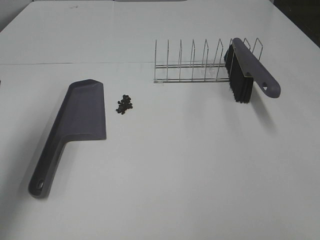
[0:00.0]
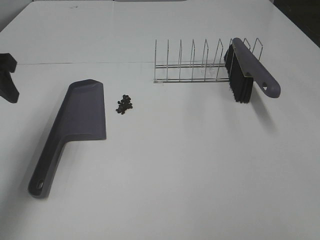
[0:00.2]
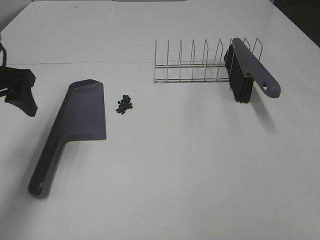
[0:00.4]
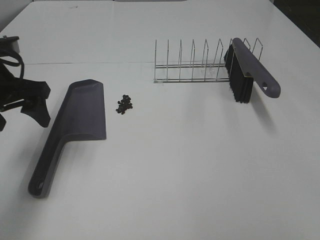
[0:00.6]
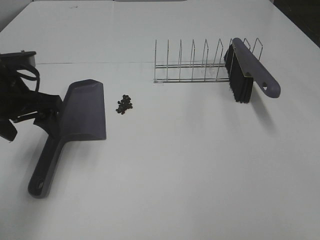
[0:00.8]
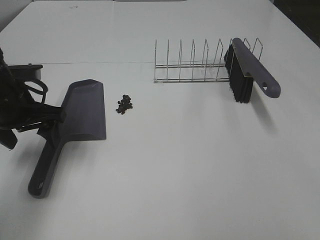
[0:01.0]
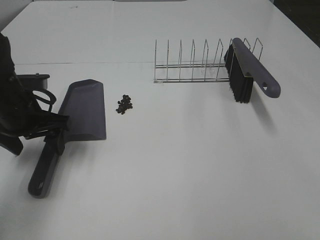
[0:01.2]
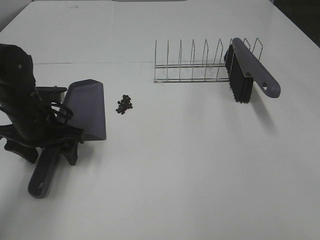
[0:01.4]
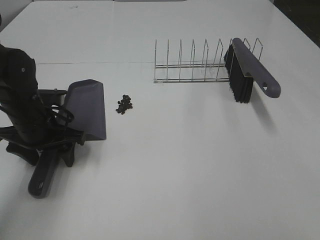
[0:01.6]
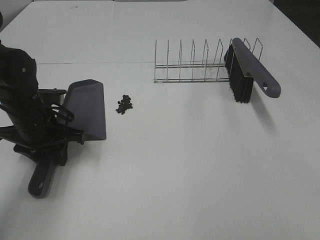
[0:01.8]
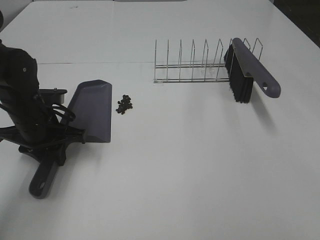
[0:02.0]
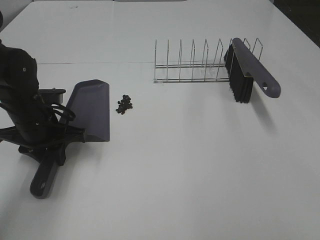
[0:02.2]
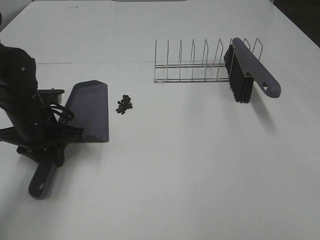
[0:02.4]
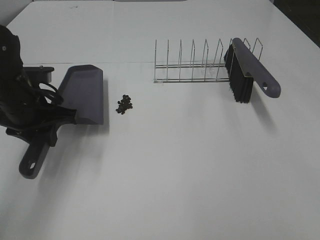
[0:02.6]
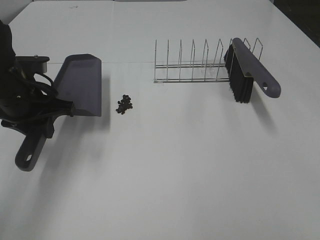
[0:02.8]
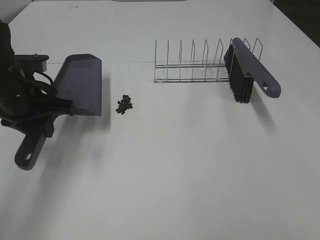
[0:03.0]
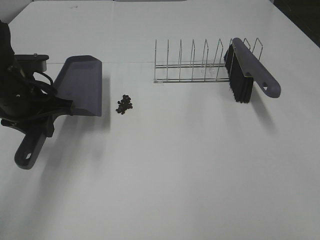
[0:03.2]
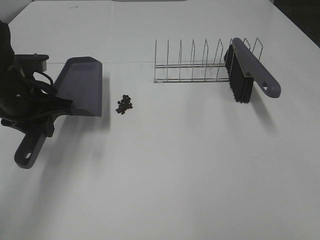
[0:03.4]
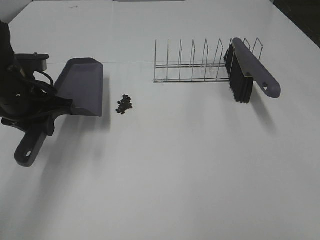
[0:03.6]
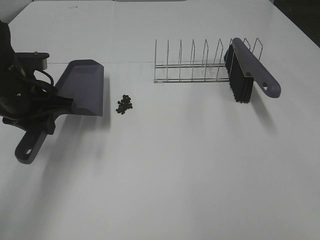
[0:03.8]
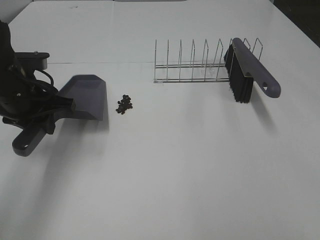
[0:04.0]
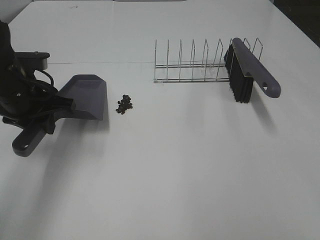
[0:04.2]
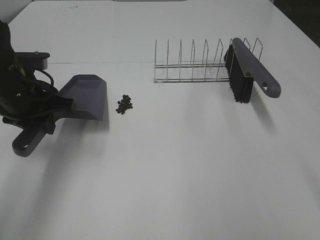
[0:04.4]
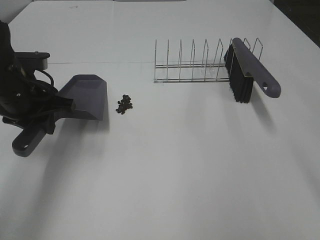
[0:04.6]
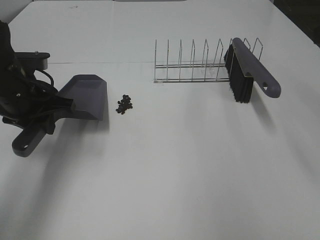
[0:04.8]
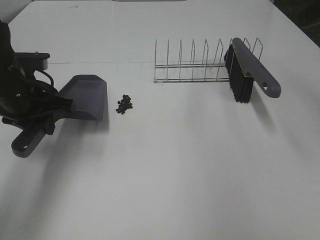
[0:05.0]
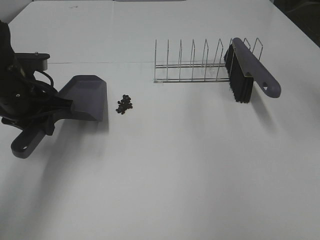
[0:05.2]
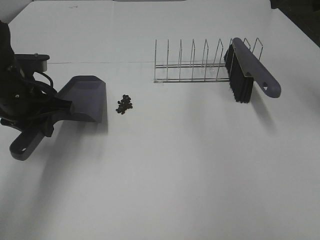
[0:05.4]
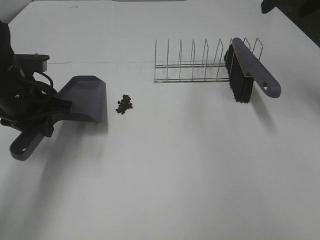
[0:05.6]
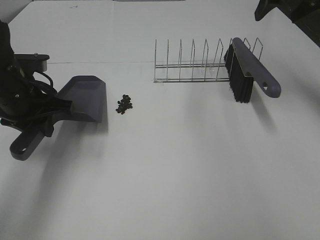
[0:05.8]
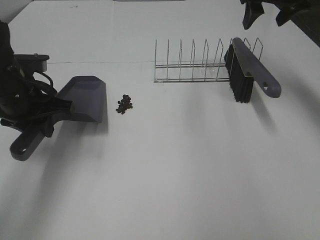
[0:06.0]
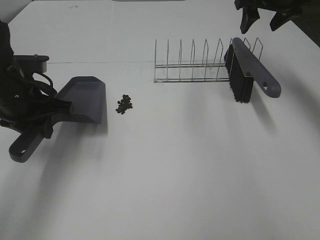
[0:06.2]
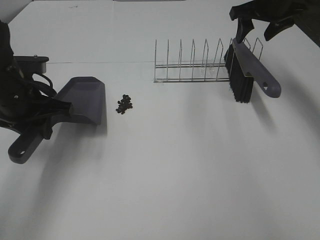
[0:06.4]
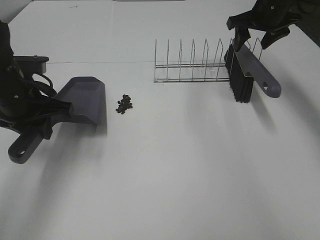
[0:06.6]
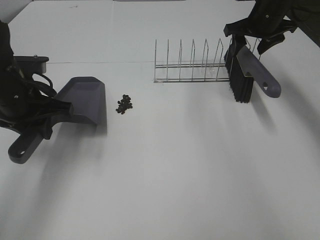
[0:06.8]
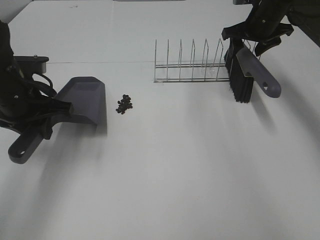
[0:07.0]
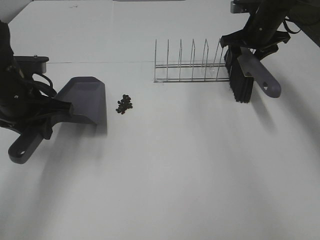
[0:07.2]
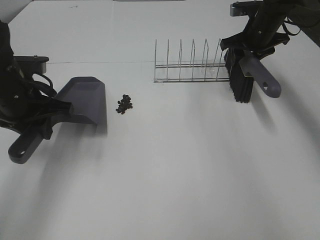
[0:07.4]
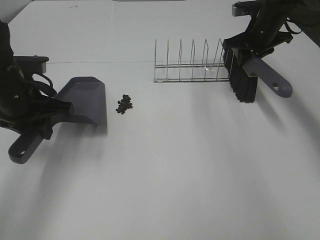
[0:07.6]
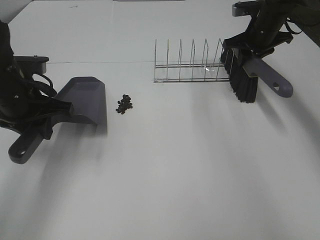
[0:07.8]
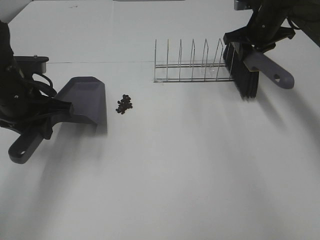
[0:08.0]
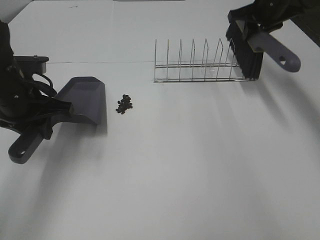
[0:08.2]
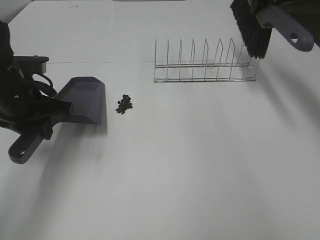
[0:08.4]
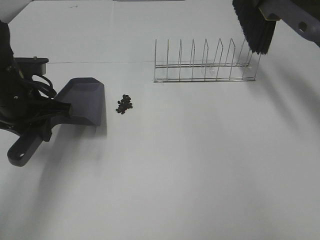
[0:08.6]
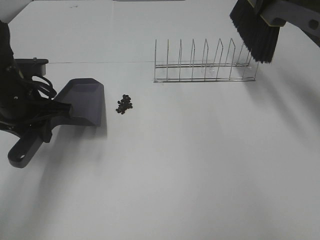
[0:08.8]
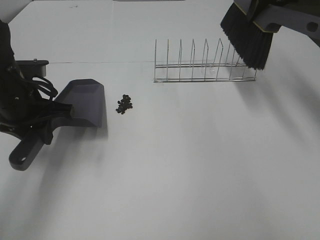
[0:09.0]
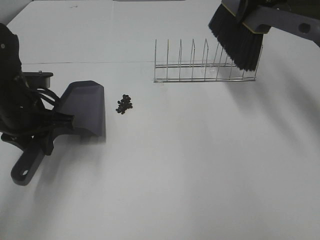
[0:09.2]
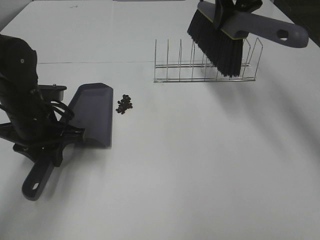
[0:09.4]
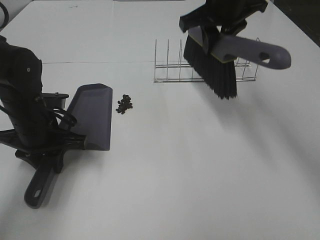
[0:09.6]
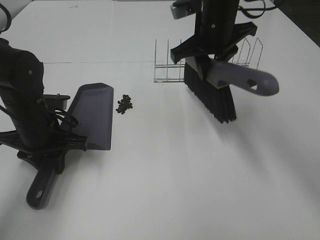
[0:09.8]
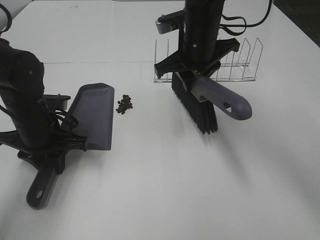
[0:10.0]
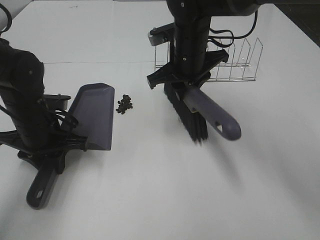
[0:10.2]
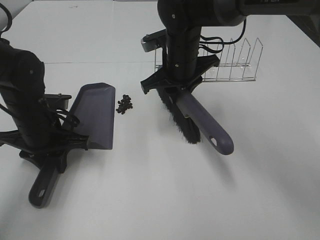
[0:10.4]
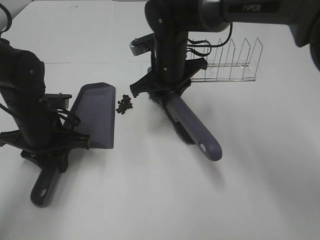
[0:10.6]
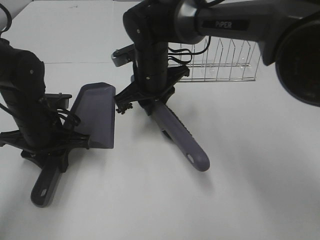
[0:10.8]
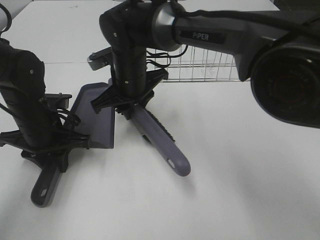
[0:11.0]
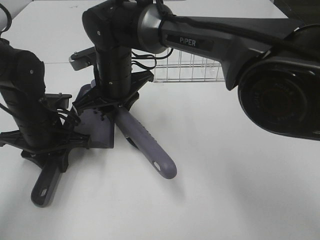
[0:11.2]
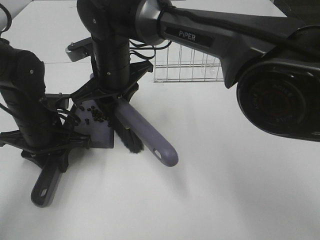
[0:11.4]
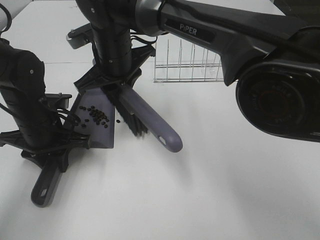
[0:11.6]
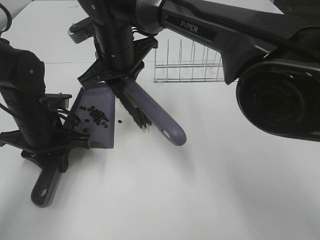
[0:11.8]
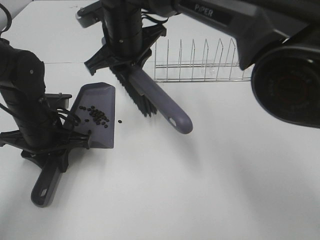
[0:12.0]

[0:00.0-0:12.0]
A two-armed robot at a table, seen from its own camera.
Task of the whole recording: Sweep Coffee Bean.
Step, 0:03.8 to 0:07.6: Right hand:grab the broom.
0:00.0 to 0:01.6: The left gripper travels downward and to the right by some 20 cm.
0:01.6 to 0:03.0: The left gripper goes roughly 5 cm upward, and closes up.
0:04.4 to 0:06.0: The right gripper is displaced forward by roughly 40 cm.
0:06.0 to 0:07.6: The right gripper heads downward, covering about 10 cm, and closes up.
0:07.6 to 0:09.0: The right gripper shifts roughly 15 cm upward and backward.
0:09.0 to 0:10.4: The left gripper moves downward, some 5 cm; the right gripper moves to the left and downward, approximately 25 cm.
0:10.4 to 0:12.0: The right gripper heads to the left and upward, covering some 10 cm.

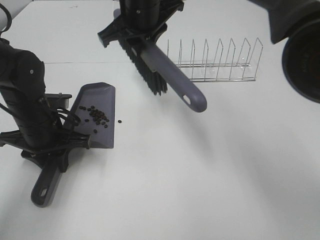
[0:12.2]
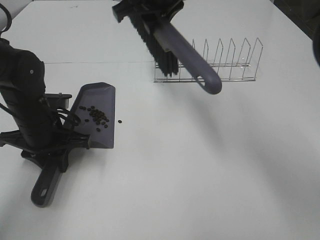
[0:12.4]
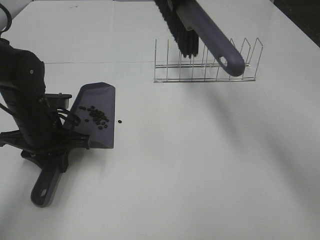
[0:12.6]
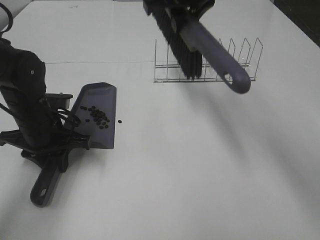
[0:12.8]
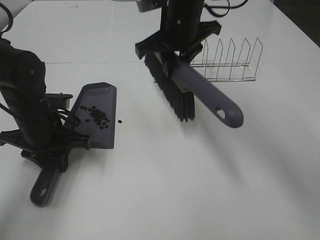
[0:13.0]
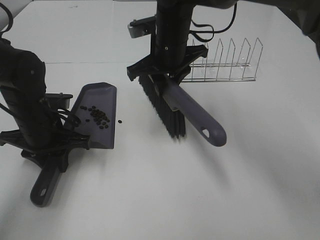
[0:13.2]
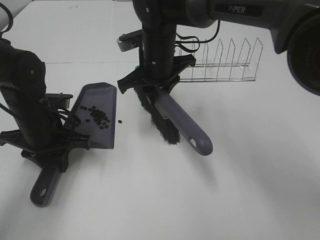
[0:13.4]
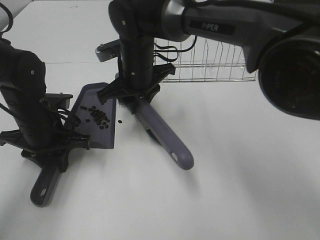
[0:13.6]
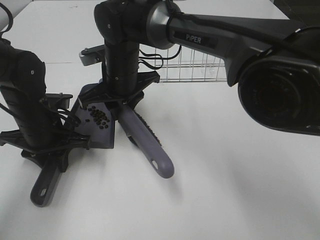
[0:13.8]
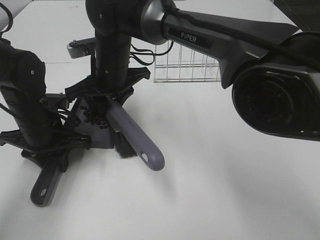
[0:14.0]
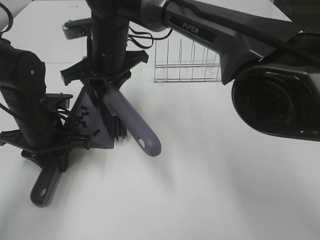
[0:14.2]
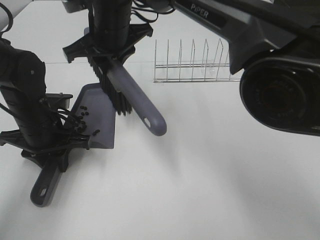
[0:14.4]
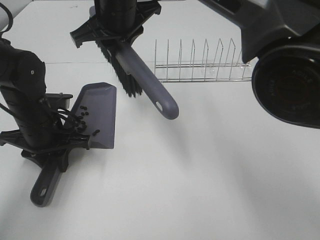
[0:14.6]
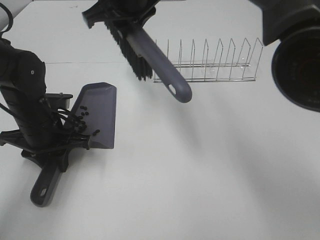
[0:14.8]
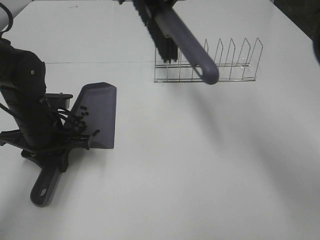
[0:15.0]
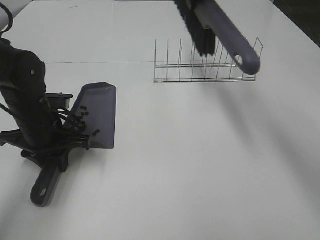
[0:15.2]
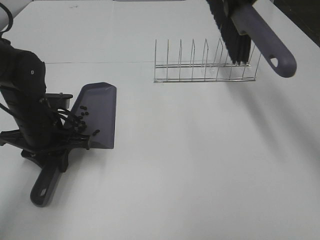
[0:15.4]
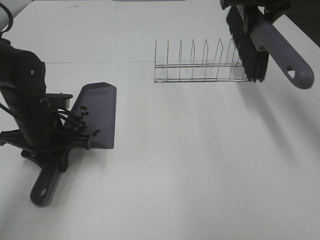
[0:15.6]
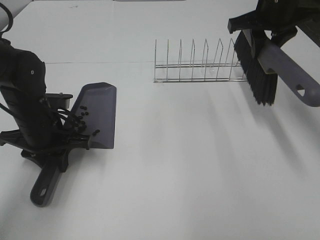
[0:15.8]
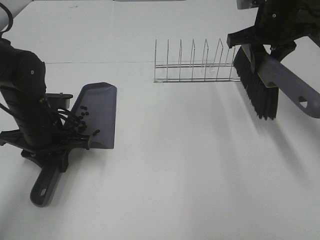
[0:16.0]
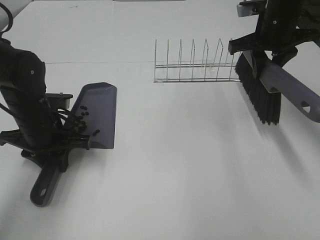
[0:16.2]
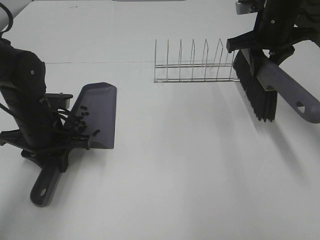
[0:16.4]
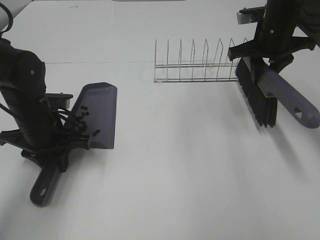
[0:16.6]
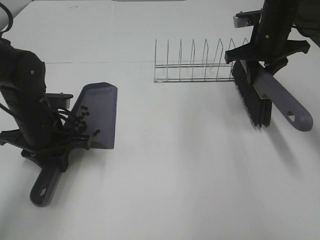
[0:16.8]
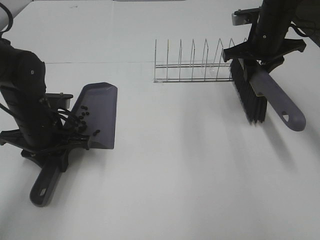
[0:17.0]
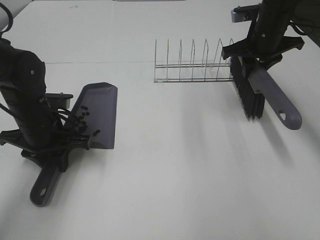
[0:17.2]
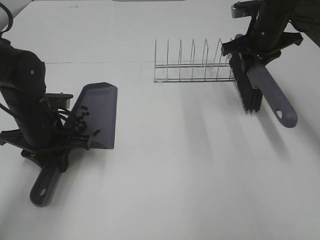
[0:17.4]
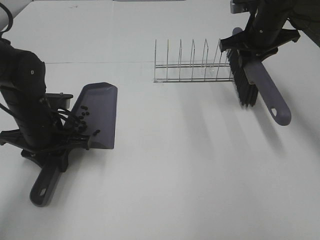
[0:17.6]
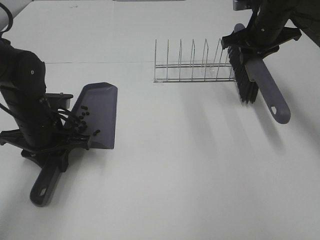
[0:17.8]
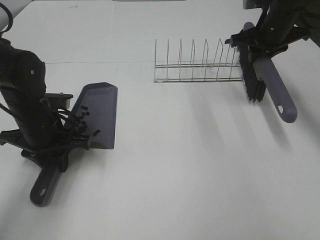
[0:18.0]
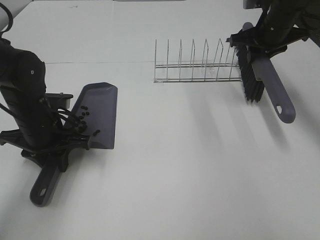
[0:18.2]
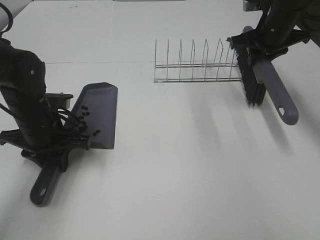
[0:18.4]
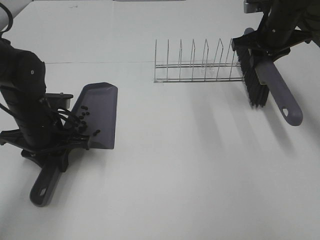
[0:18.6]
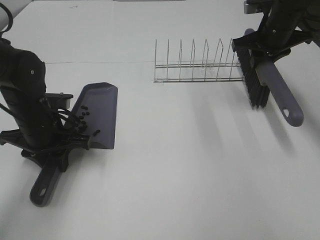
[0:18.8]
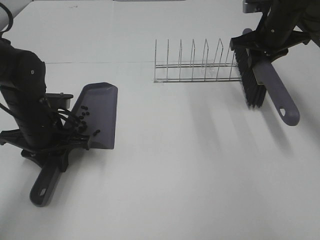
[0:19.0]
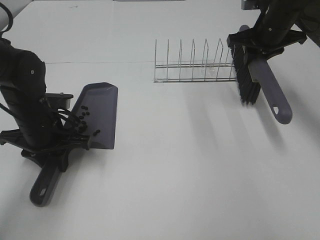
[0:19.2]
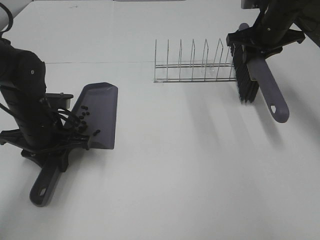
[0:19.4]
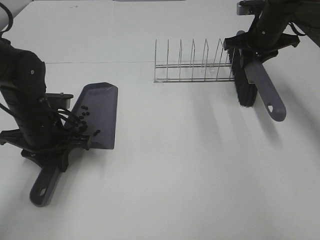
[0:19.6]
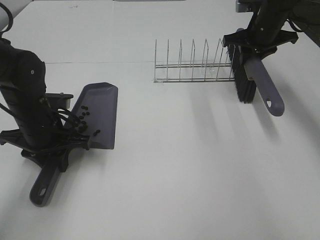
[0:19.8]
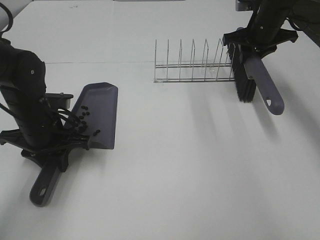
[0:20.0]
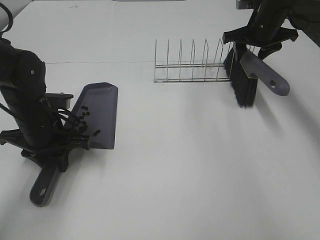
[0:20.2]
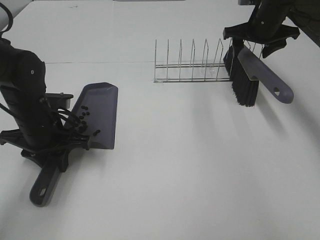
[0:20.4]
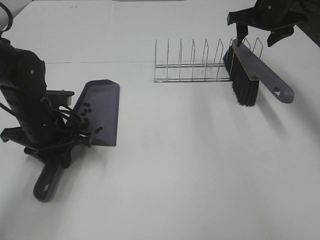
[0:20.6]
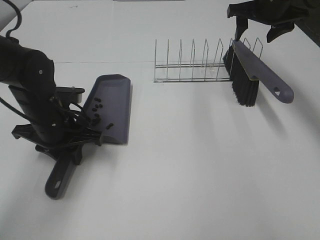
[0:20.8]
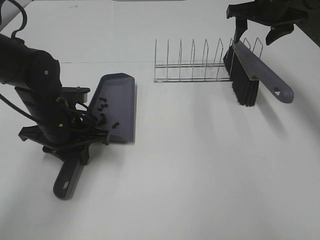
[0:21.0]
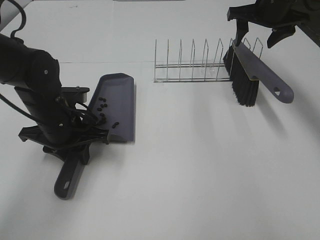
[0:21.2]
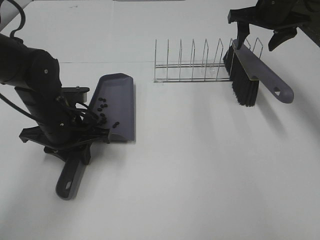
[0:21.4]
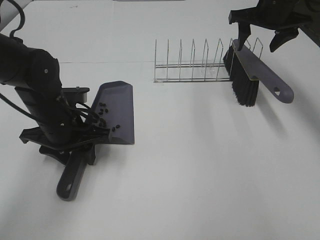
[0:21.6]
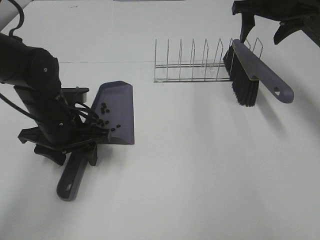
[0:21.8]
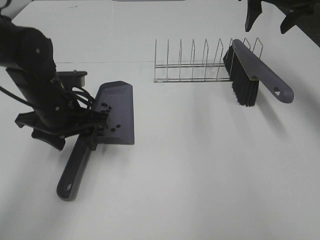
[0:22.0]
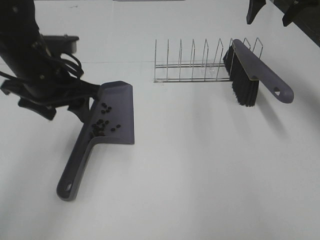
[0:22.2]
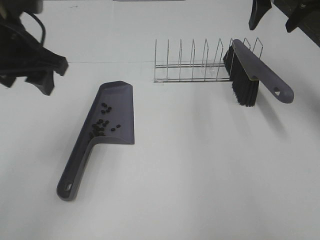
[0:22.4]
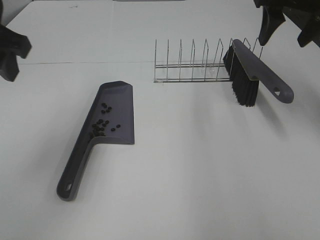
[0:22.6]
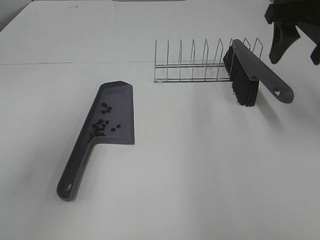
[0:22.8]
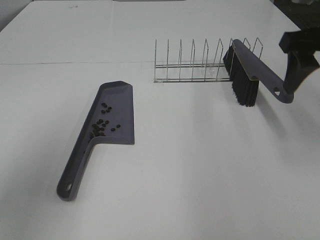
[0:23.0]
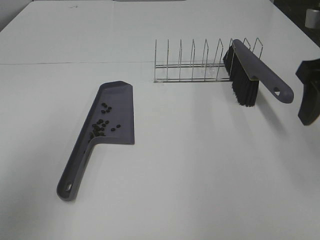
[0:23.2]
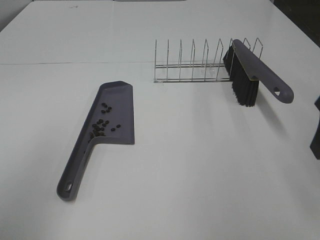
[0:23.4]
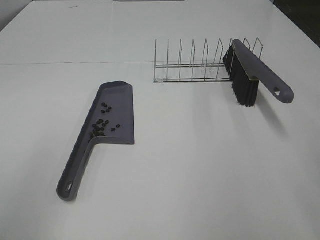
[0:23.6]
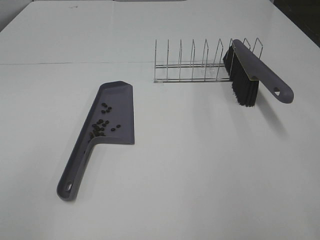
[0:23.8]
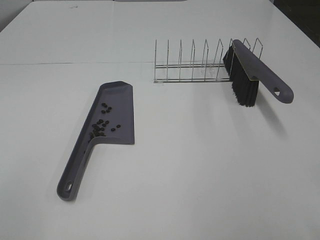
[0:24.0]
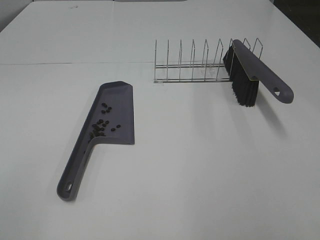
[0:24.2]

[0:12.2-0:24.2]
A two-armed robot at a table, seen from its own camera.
Task of the whole recording: Sweep Coffee Bean.
Step, 0:12.2 to 0:14.2: Right hand:sweep the coffee beans into the dustpan.
Step, 0:14.4 to 0:20.4: Right hand:place the broom on the rack.
Step, 0:20.6 to 0:21.8: Left hand:place the dustpan on the table.
0:12.2 to 0:13.8: The right gripper heads downward, covering roughly 10 cm.
0:13.8 to 0:15.2: The right gripper travels upward and to the right by some 25 cm.
0:15.2 to 0:16.6: The right gripper shifts approximately 20 cm downward and to the right.
0:16.6 to 0:18.2: The grippers make only small movements.
0:18.2 to 0:19.8: The grippers move only a little.
0:19.8 to 0:21.2: The right gripper heads upward, covering some 5 cm, and opens up.
0:21.2 to 0:22.6: The right gripper is displaced backward and upward by approximately 15 cm. The left gripper goes approximately 20 cm upward, and opens.
0:22.6 to 0:24.2: Both grippers travel together backward, roughly 30 cm.
